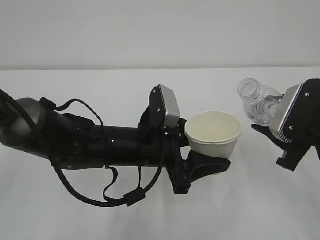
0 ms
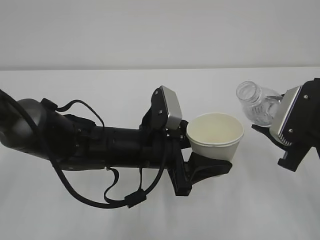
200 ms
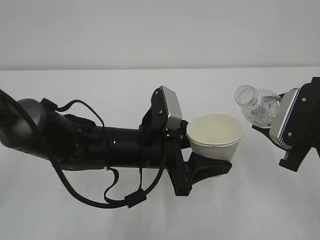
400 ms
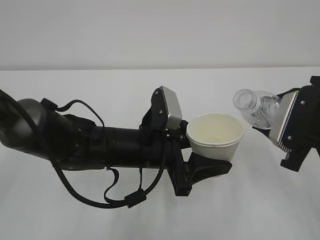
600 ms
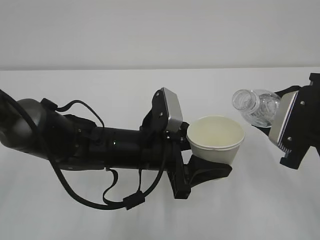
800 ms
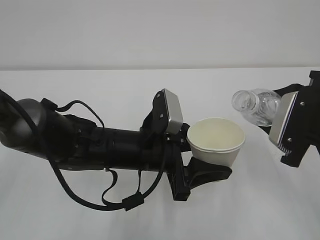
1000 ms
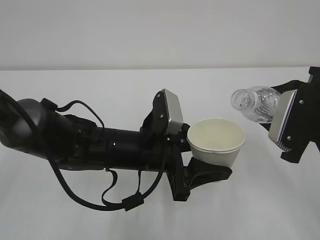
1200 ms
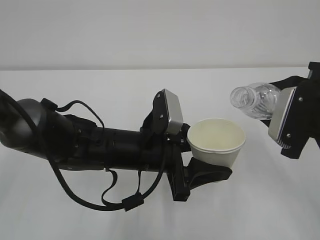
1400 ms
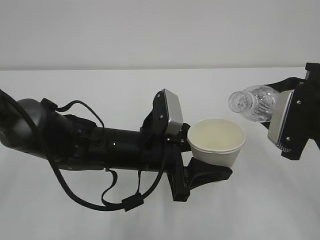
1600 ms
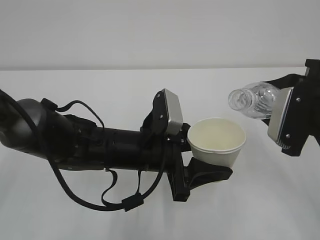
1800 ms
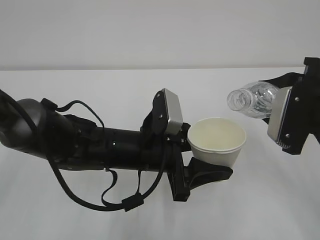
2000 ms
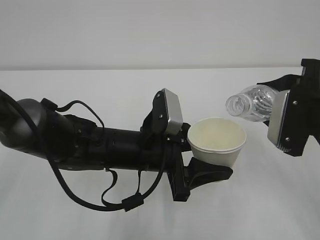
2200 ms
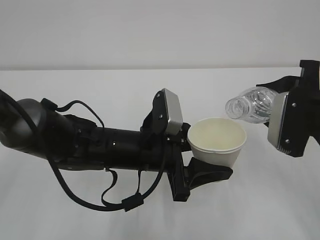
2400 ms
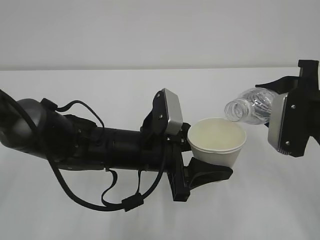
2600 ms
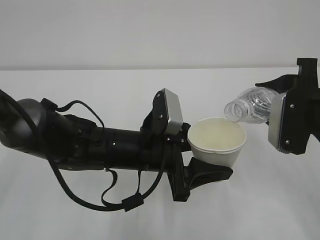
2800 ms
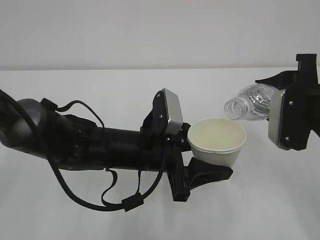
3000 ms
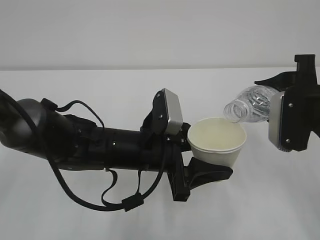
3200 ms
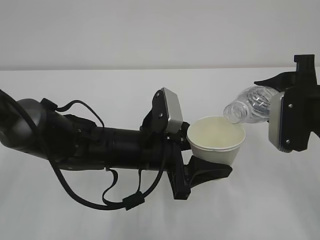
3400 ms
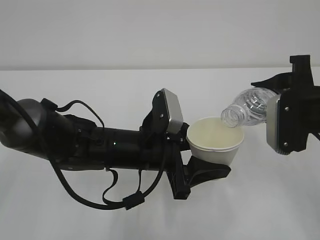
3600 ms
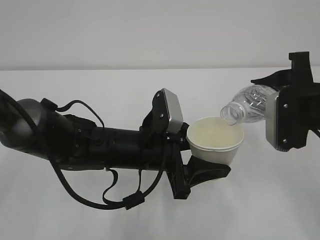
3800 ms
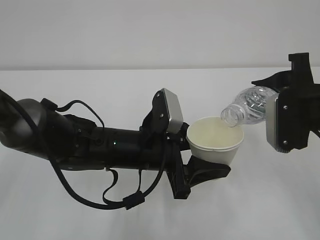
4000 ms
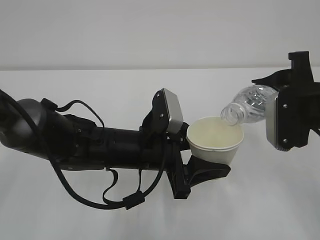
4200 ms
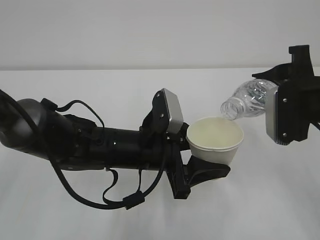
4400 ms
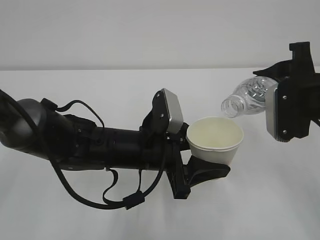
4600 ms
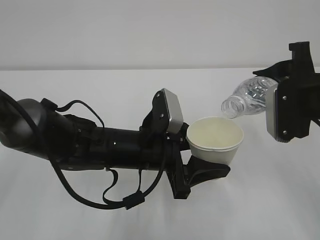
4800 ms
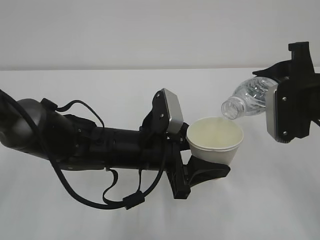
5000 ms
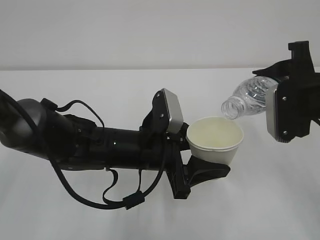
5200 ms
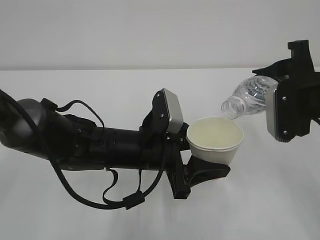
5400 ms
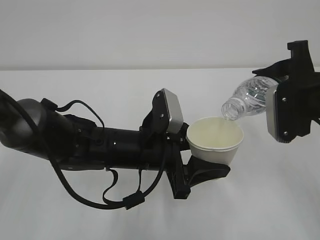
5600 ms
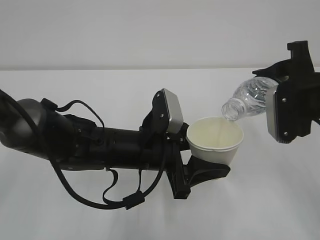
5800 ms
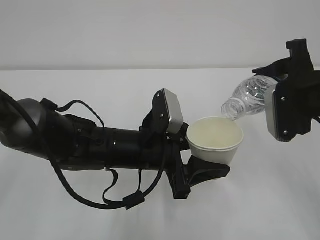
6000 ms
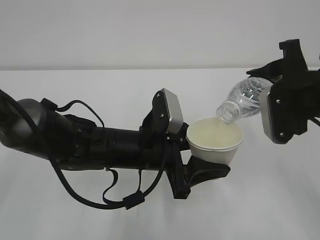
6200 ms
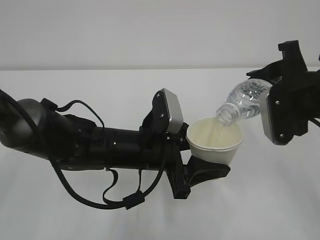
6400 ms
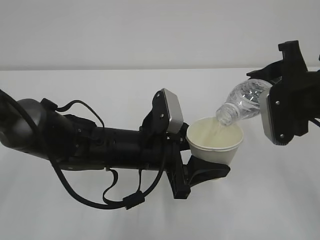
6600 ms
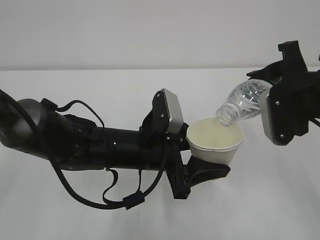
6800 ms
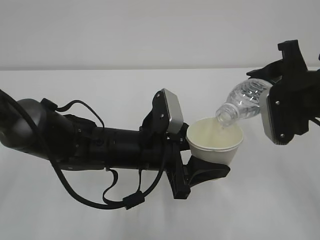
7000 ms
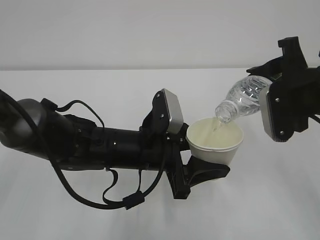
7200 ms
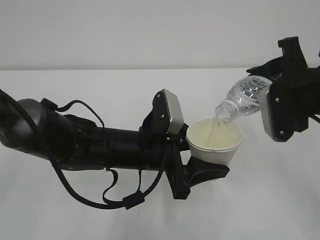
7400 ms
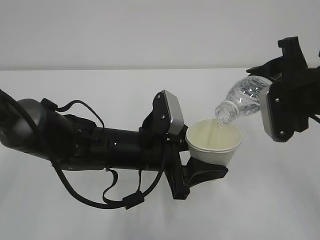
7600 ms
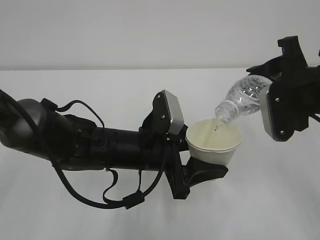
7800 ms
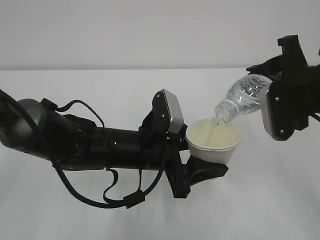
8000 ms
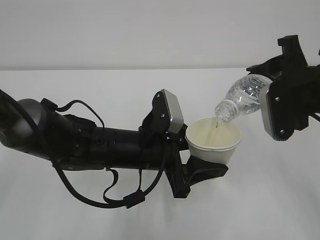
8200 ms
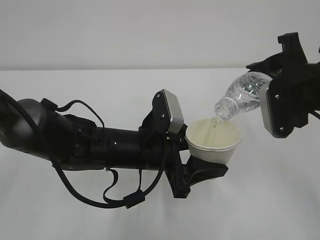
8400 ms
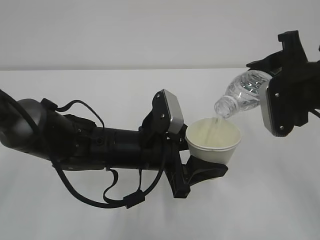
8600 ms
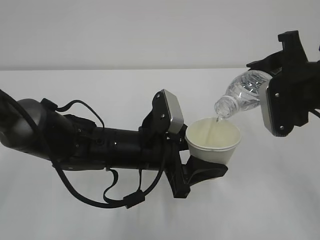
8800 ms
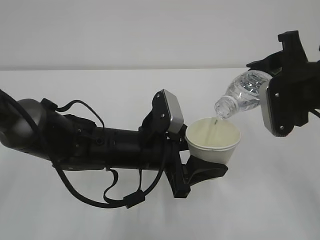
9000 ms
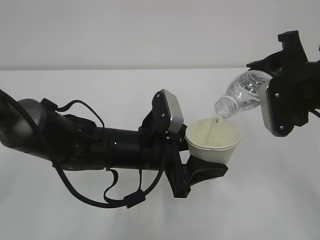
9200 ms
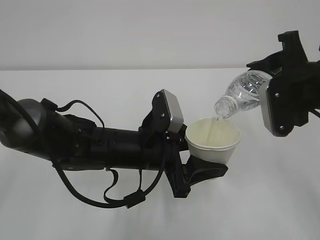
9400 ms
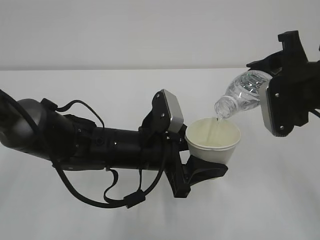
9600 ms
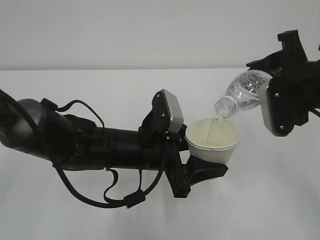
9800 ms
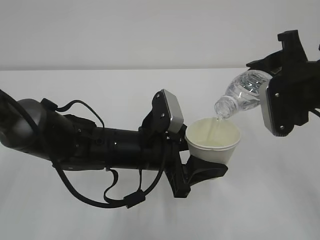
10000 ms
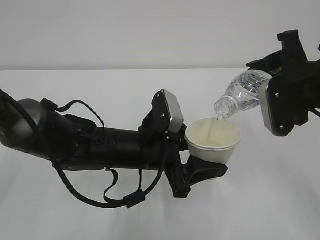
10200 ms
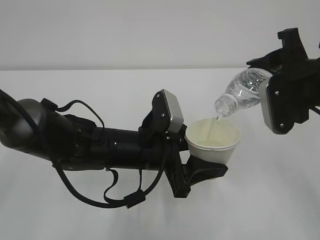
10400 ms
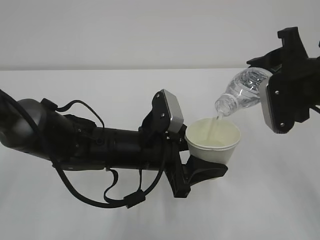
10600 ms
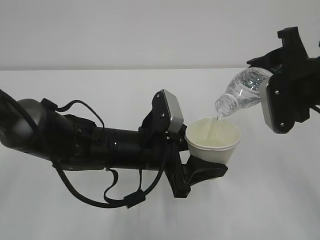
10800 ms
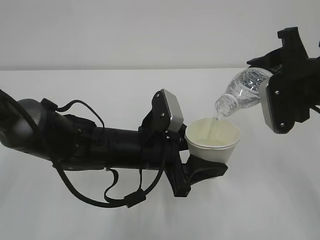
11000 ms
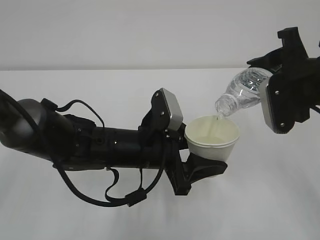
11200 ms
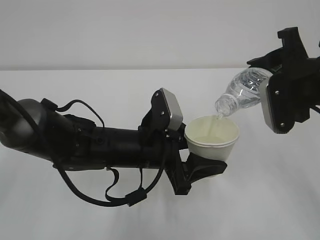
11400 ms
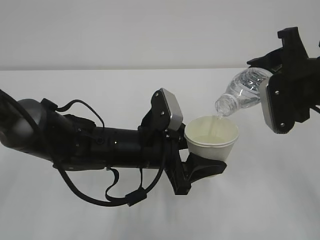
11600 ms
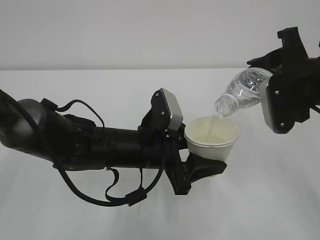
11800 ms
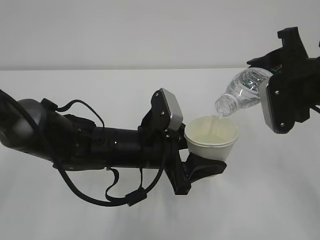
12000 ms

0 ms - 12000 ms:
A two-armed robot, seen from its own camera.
0 ms - 1600 ms: The grippers move only a little.
1600 ms - 4400 ms: The grippers stay close to where they were, moving slightly.
4400 ms - 6000 ms: The grippers move only a little.
6000 ms - 7600 ms: The two grippers keep their place.
7600 ms - 12000 ms: Both grippers stay about where they are.

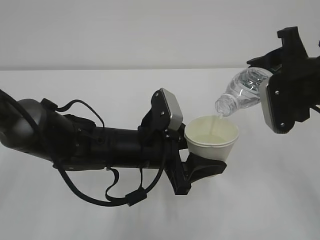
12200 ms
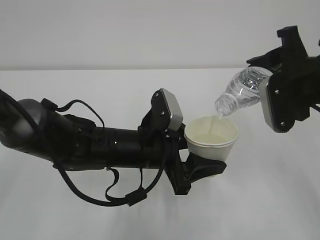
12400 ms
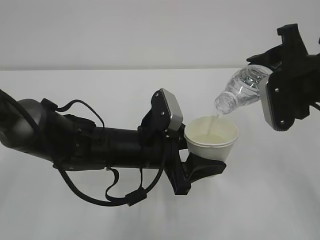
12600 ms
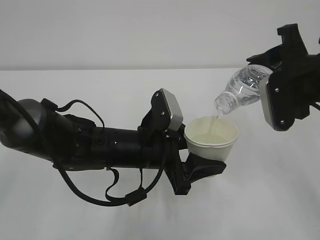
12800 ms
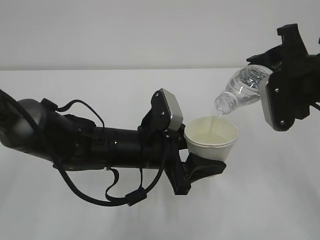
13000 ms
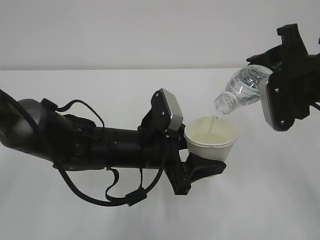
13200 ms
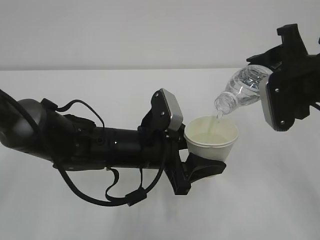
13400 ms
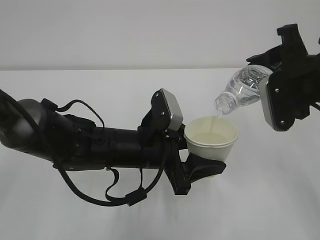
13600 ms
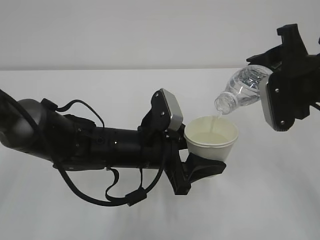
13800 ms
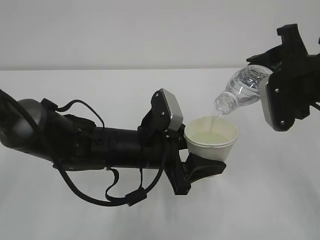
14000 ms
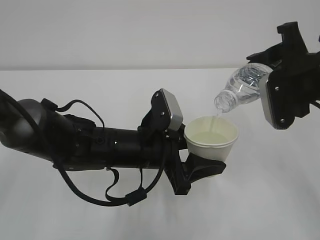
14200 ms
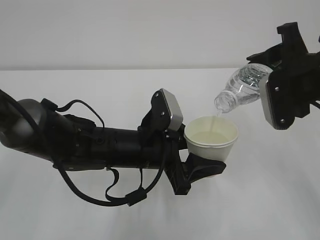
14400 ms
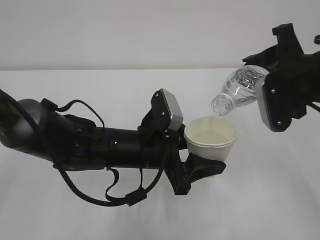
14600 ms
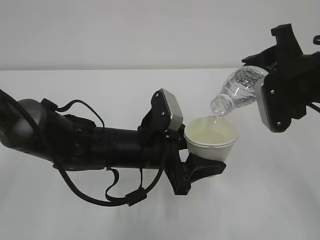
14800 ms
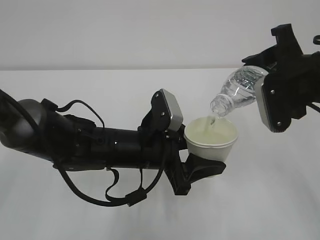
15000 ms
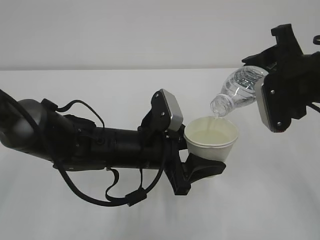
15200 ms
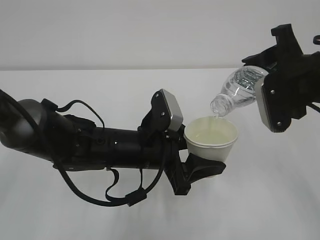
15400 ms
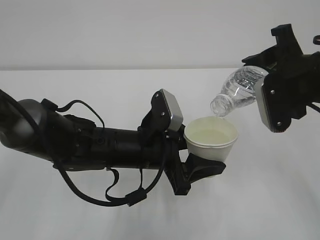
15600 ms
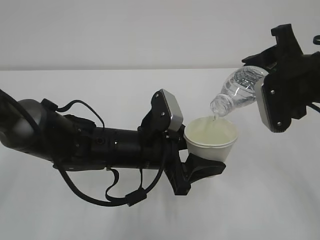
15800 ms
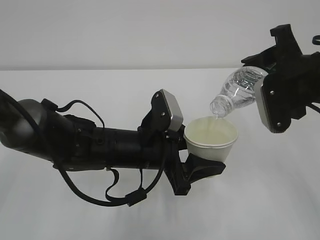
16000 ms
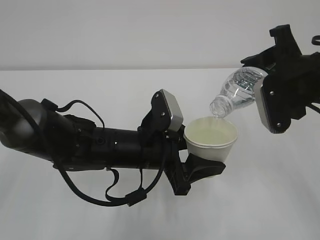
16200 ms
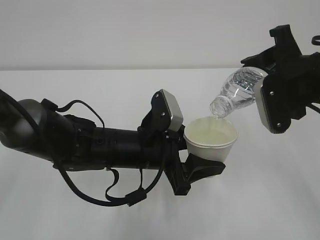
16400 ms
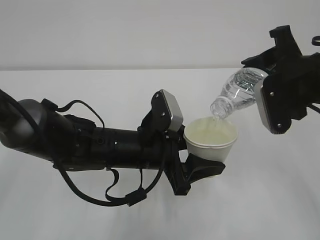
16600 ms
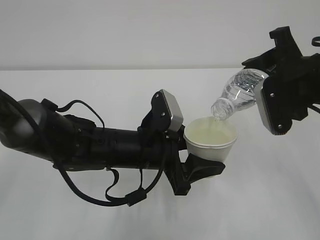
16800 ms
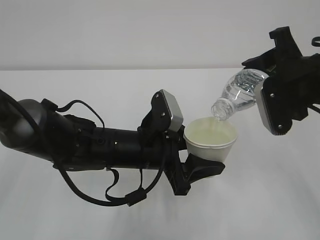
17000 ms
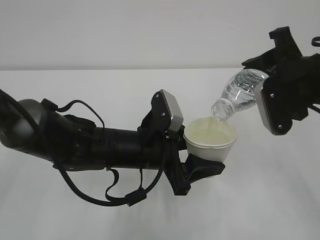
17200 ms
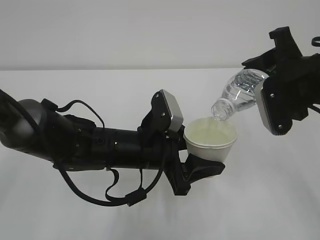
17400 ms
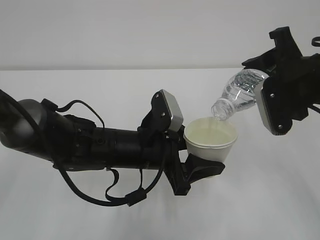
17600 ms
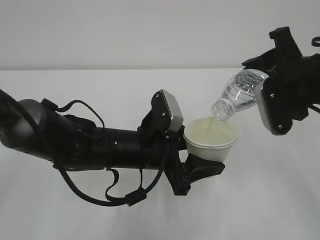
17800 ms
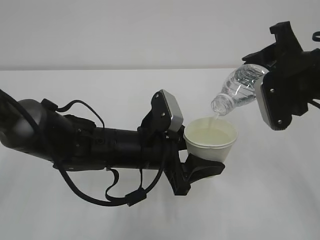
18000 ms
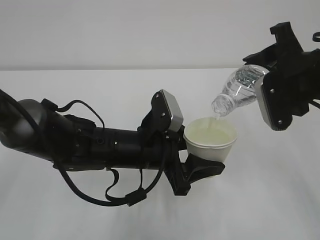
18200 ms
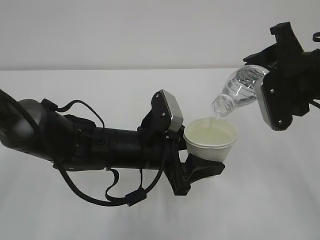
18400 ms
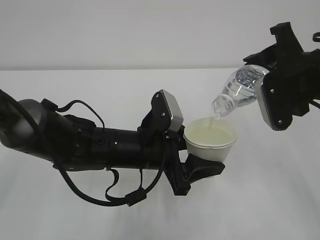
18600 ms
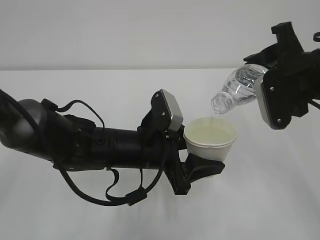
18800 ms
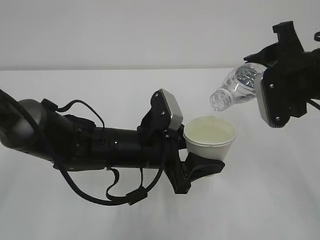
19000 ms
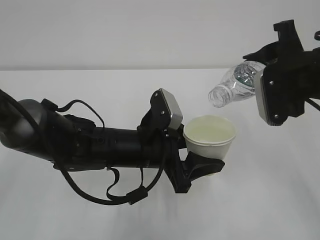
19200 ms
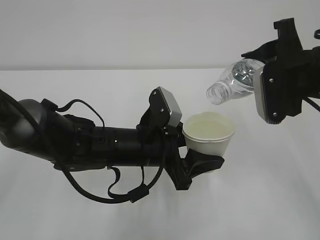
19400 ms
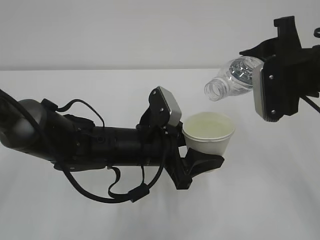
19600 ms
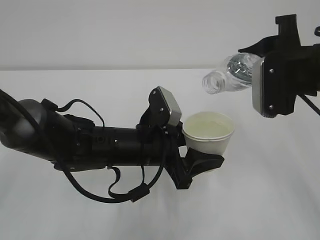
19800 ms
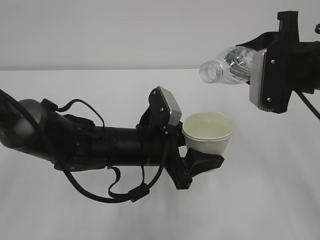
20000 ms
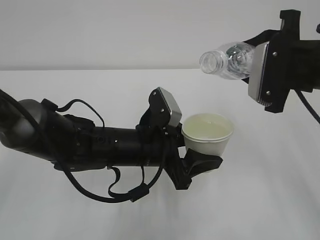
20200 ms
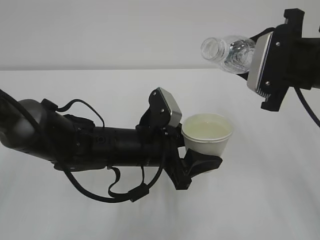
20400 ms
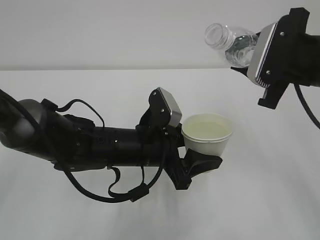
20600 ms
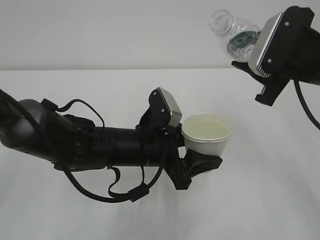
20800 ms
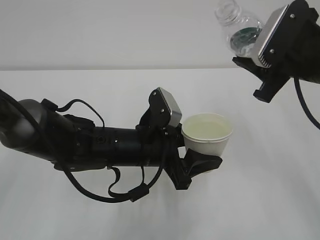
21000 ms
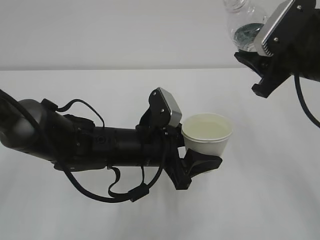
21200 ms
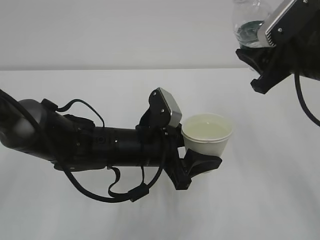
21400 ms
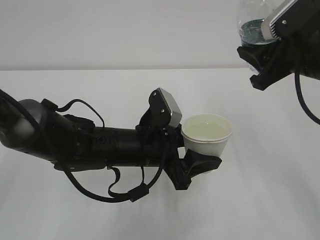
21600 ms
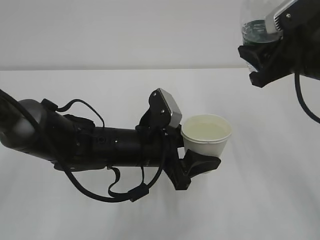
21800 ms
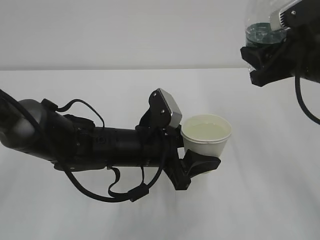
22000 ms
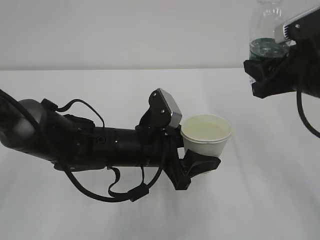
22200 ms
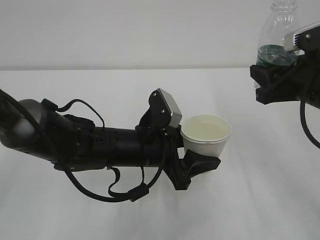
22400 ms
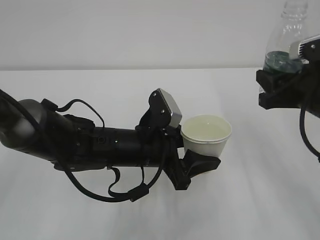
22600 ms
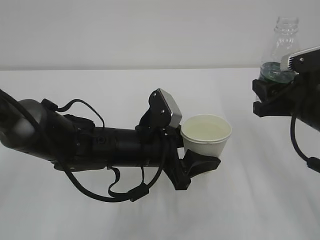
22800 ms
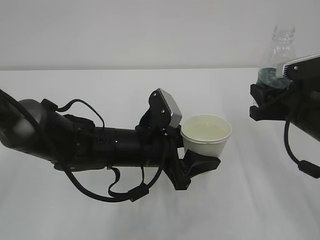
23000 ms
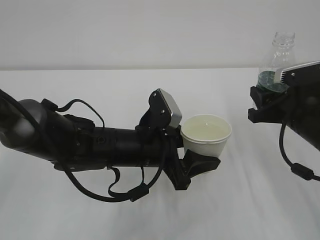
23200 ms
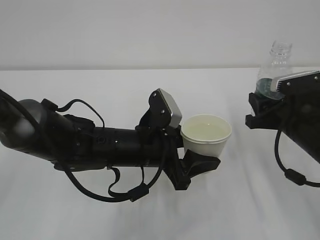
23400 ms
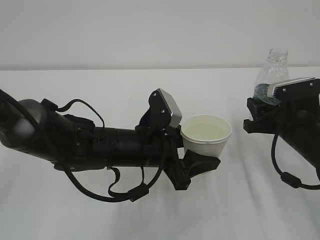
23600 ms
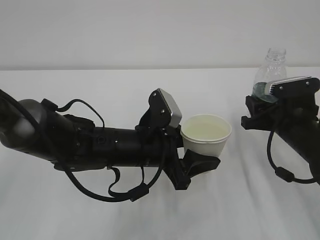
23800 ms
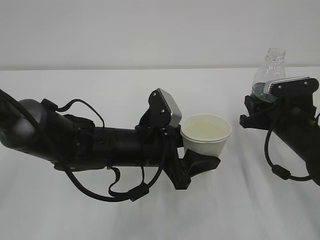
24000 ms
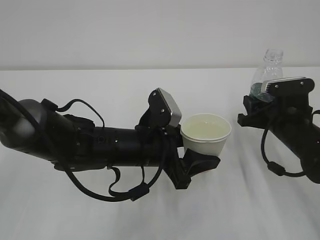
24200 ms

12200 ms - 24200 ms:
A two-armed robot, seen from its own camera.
12200 ms - 18200 ms: The two grippers keep their place.
18200 ms - 19800 ms: The grippers stay close to where they were, moving slightly.
21200 ms - 22600 ms: The right gripper changes place by approximately 5 cm.
22600 ms - 24200 ms: The right gripper travels downward and forward by about 10 cm.
